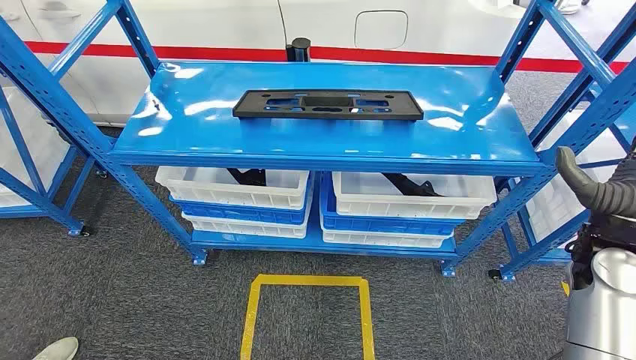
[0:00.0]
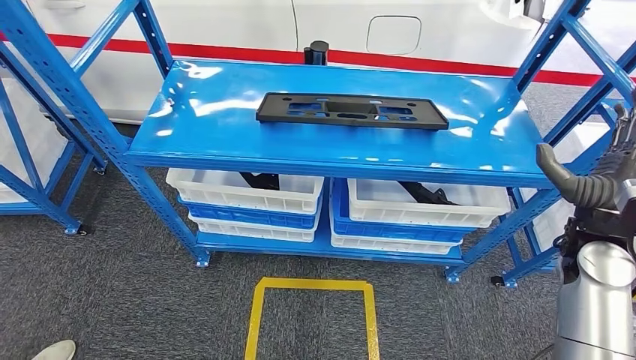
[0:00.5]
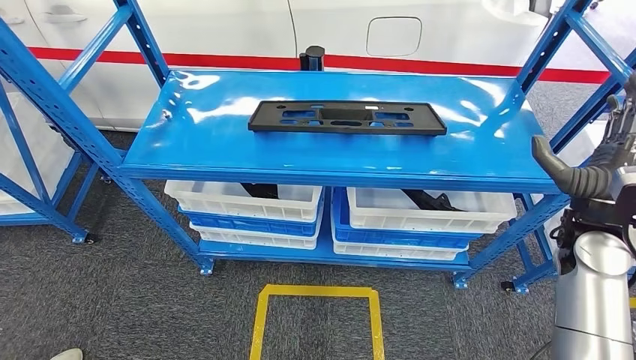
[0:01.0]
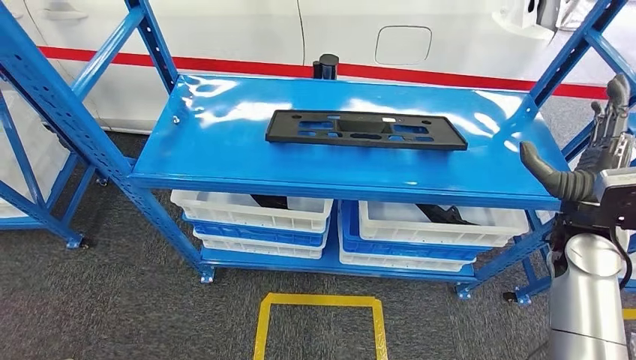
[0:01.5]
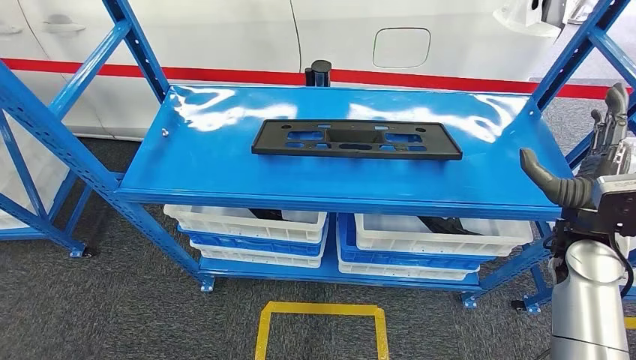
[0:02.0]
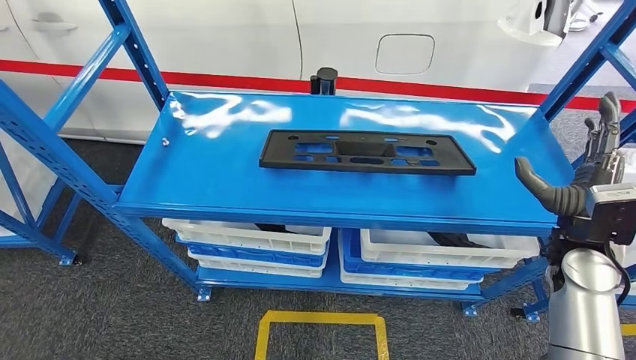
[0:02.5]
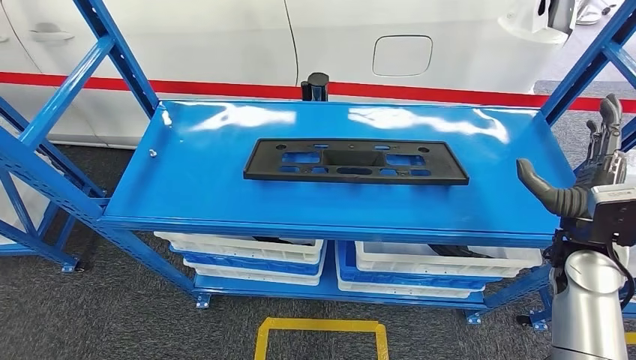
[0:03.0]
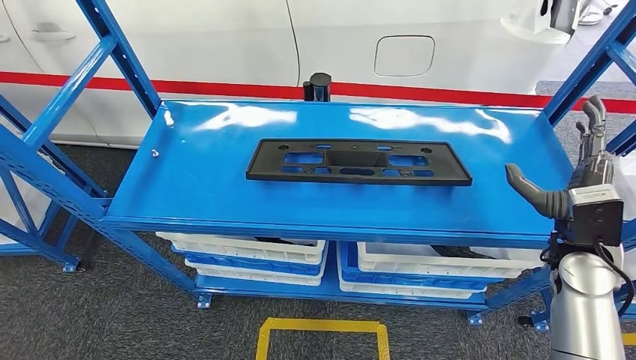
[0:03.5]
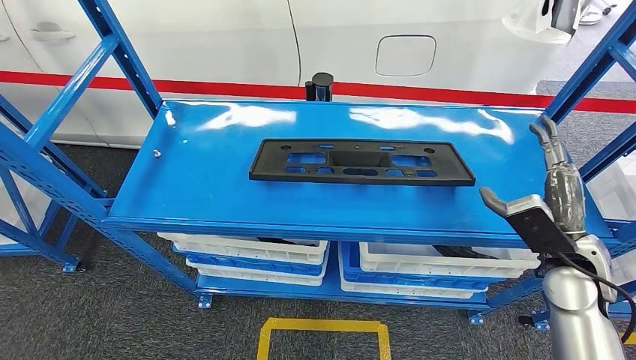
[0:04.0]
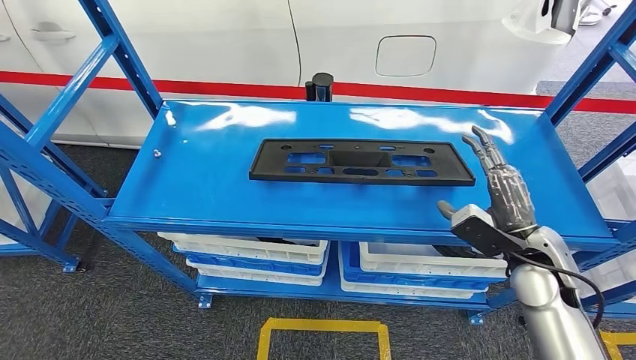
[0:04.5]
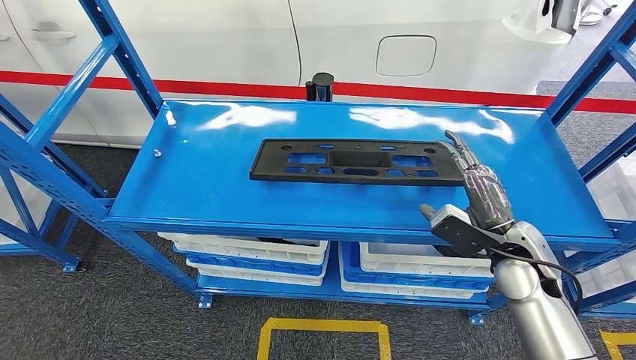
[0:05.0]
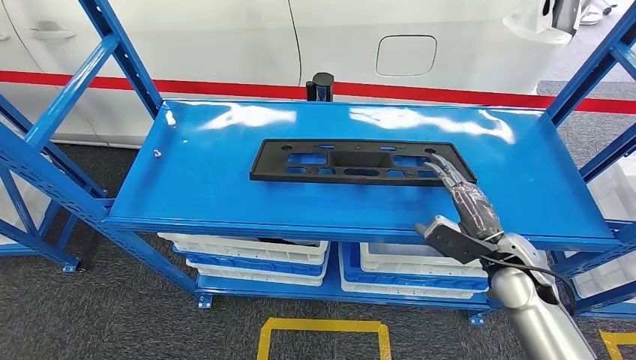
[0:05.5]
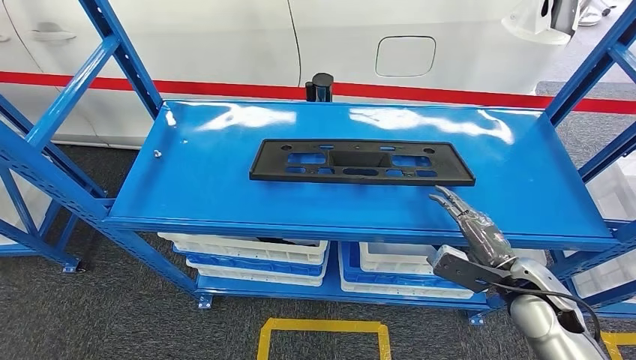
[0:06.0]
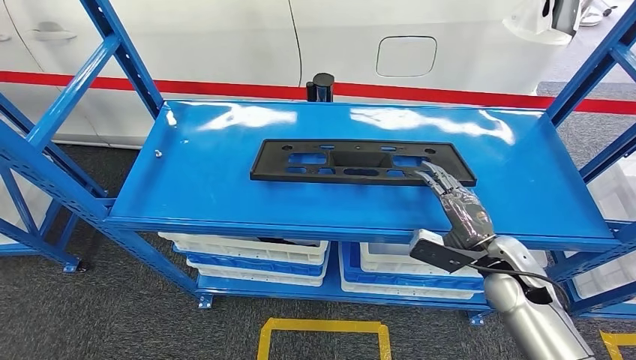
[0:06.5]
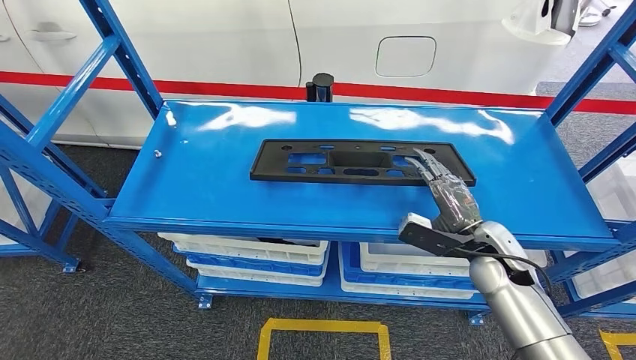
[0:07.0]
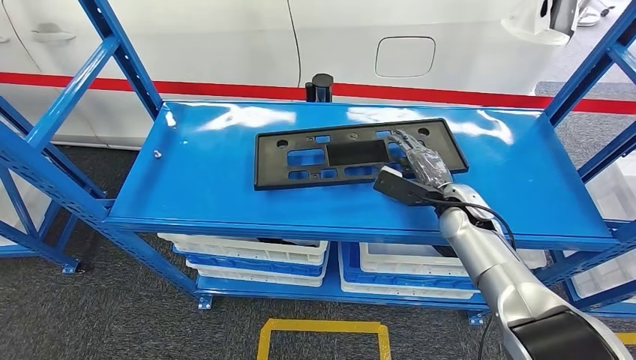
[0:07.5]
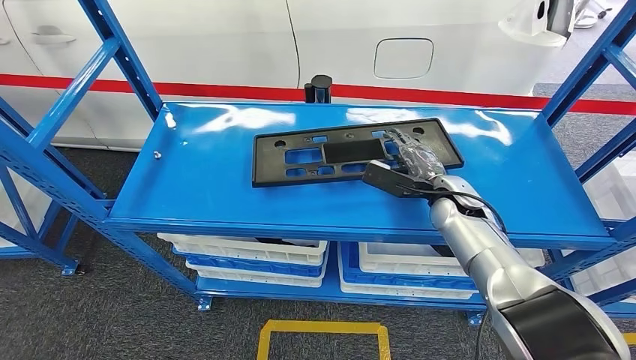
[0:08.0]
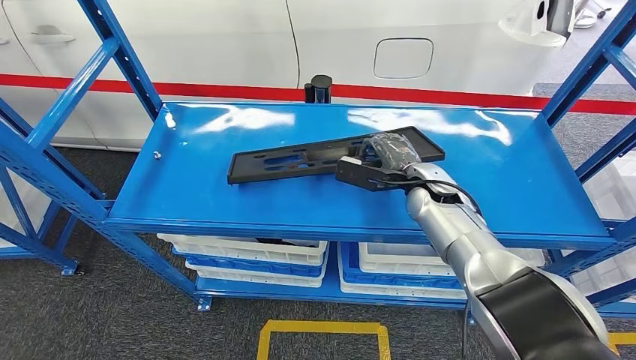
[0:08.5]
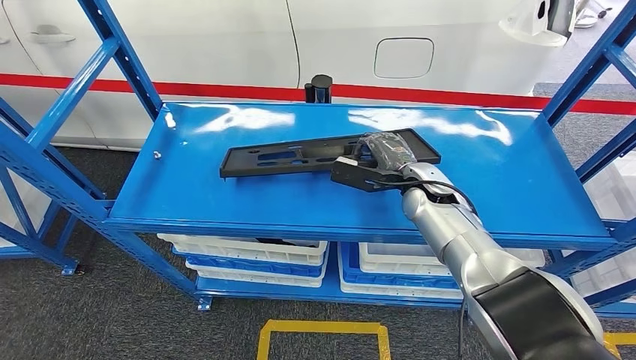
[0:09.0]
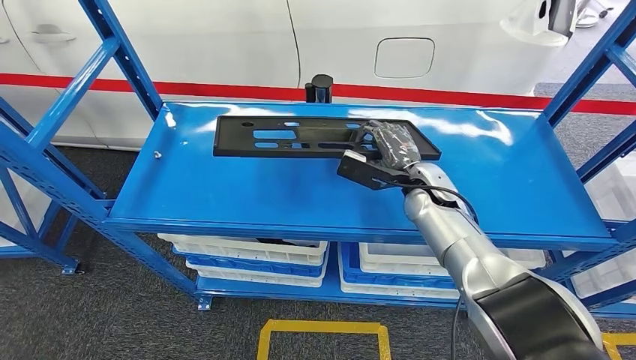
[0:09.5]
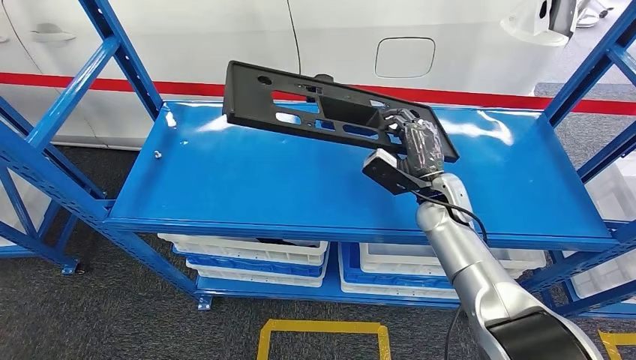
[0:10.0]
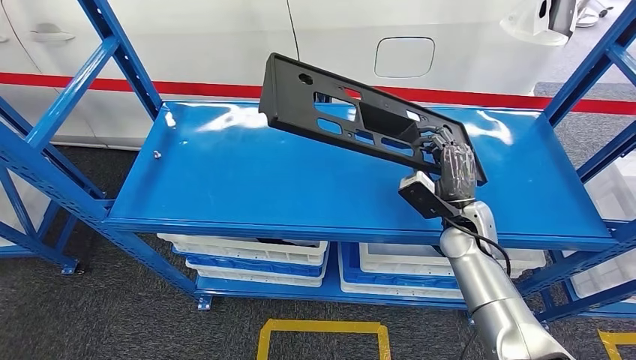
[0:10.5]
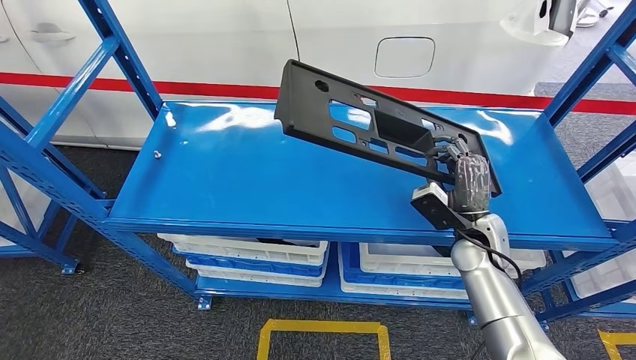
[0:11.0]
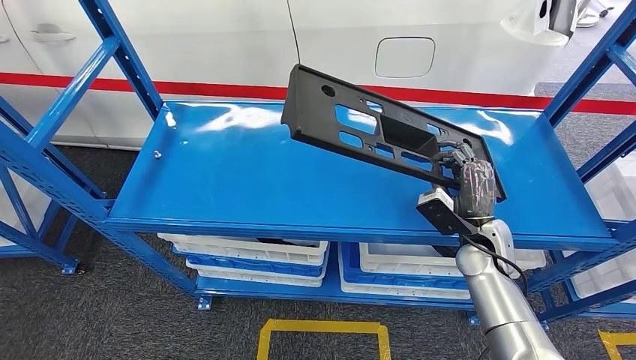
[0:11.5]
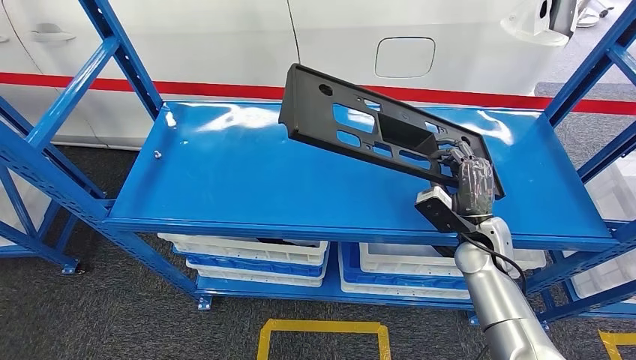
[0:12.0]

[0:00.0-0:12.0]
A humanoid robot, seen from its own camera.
0:04.0 to 0:06.0: The right hand goes roughly 5 cm downward.
0:06.0 to 0:08.0: The right hand is displaced forward and to the left by roughly 20 cm.
0:10.0 to 0:12.0: The right hand shifts roughly 10 cm to the right and backward.

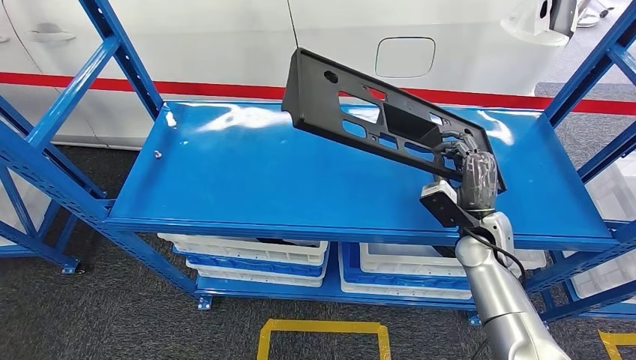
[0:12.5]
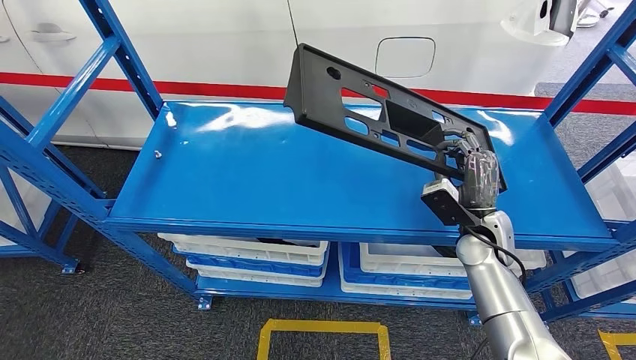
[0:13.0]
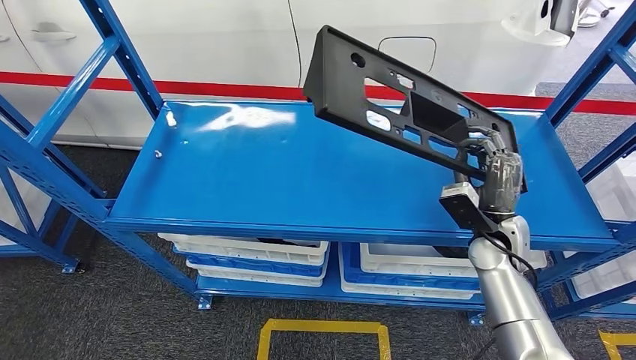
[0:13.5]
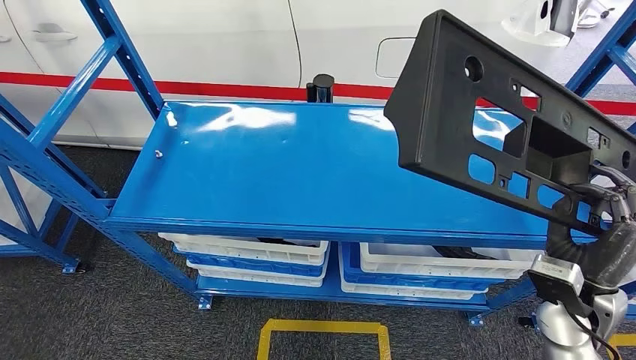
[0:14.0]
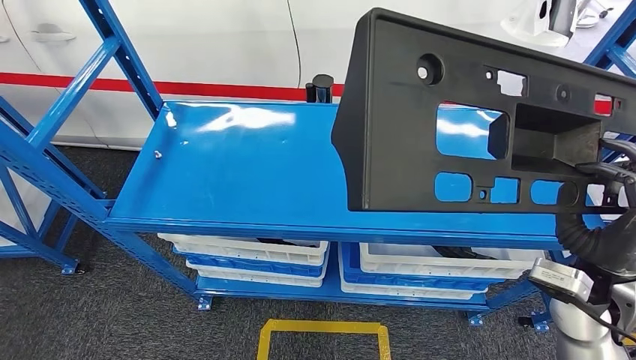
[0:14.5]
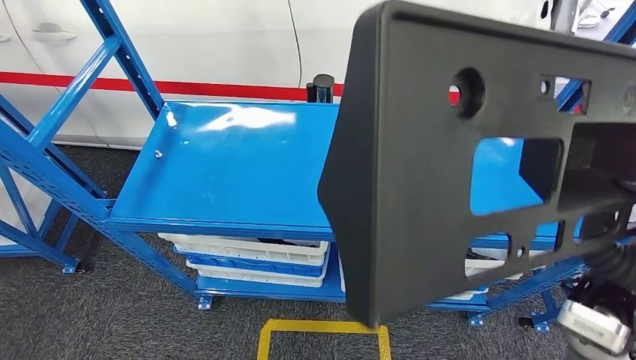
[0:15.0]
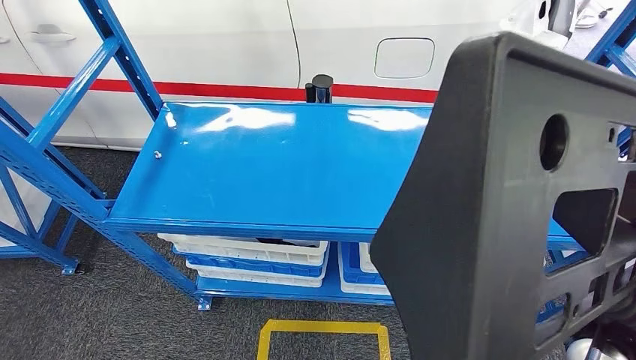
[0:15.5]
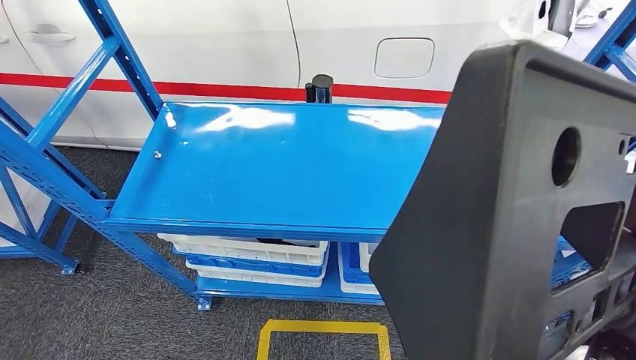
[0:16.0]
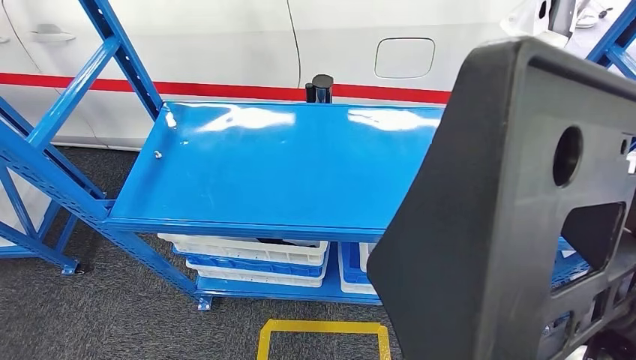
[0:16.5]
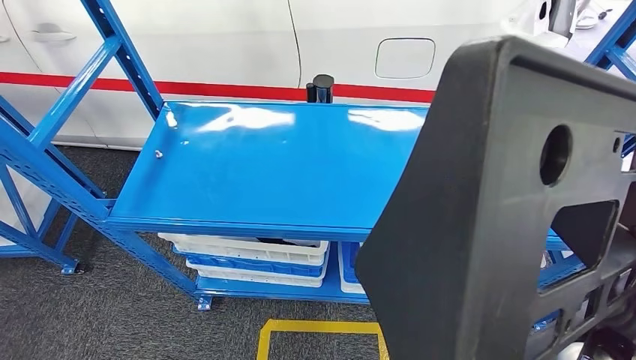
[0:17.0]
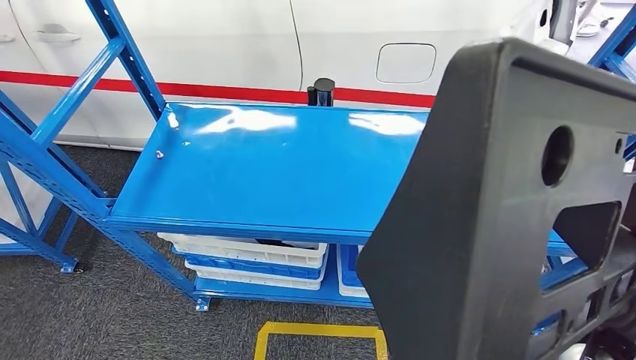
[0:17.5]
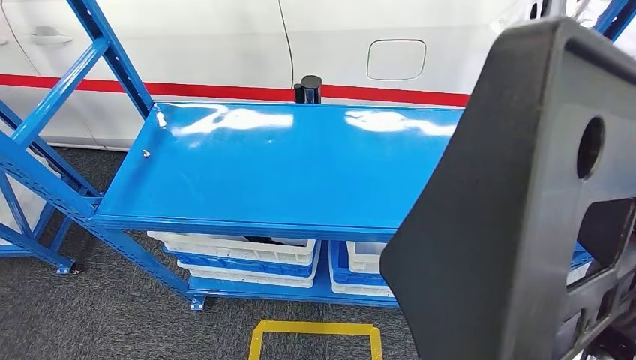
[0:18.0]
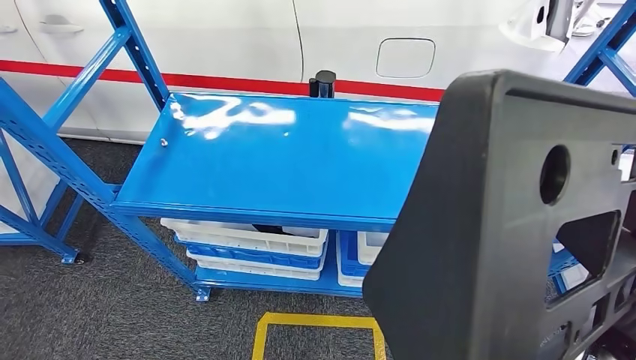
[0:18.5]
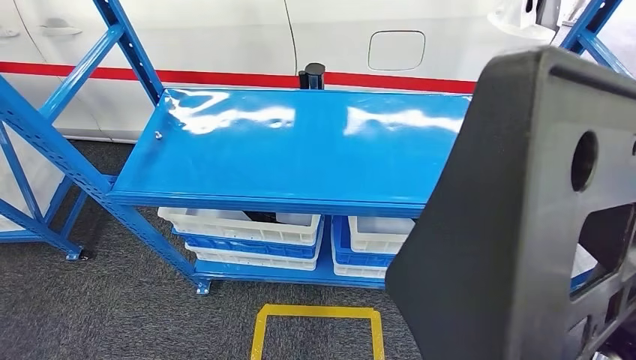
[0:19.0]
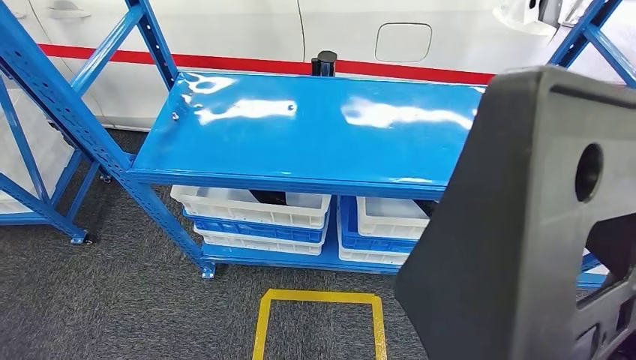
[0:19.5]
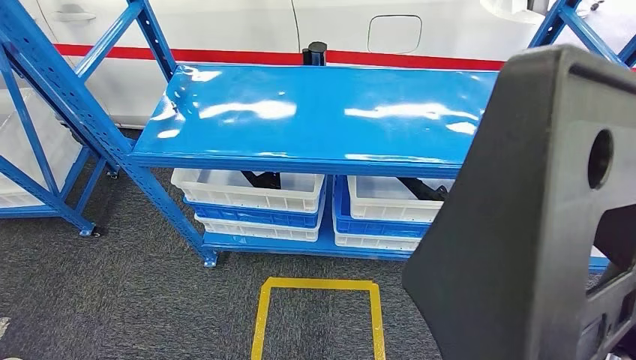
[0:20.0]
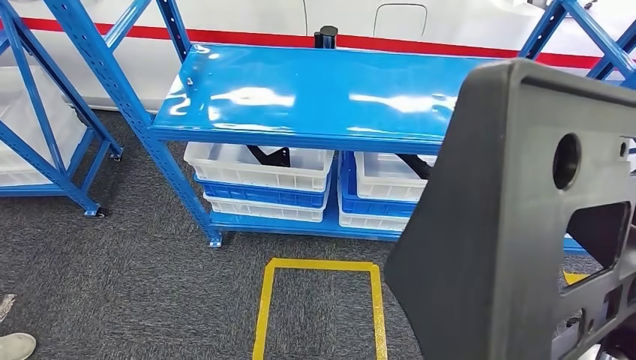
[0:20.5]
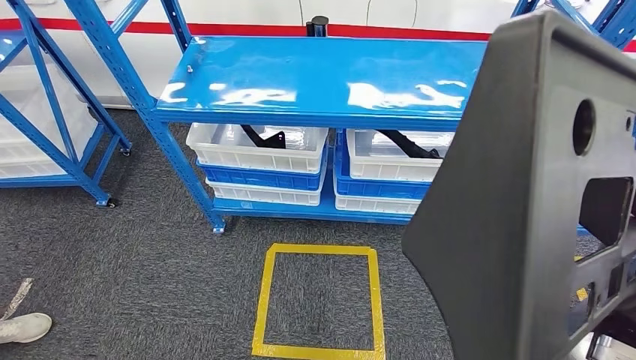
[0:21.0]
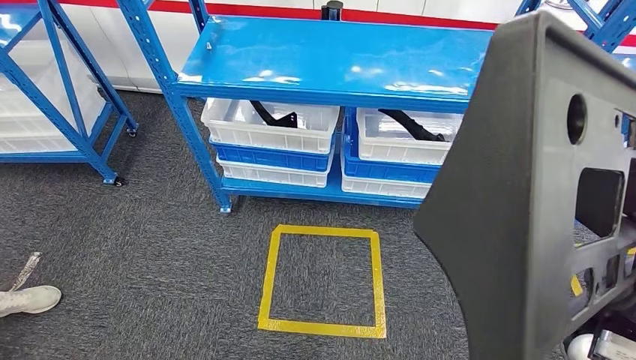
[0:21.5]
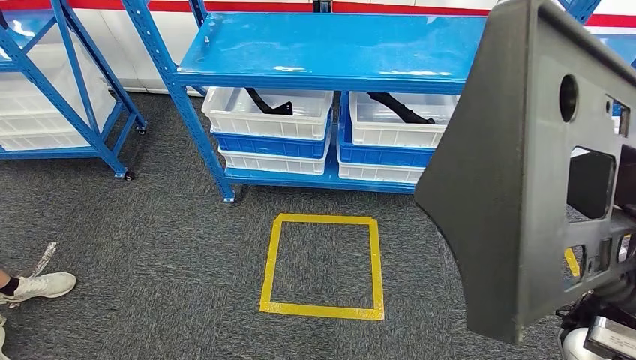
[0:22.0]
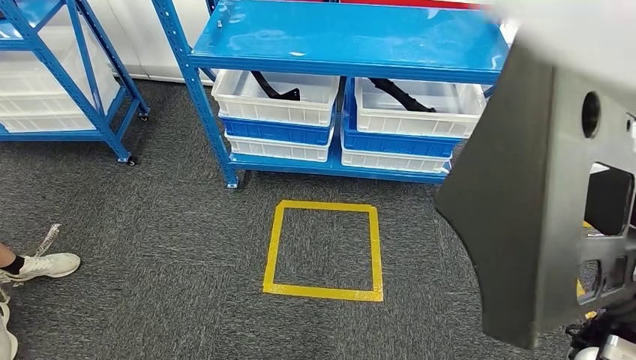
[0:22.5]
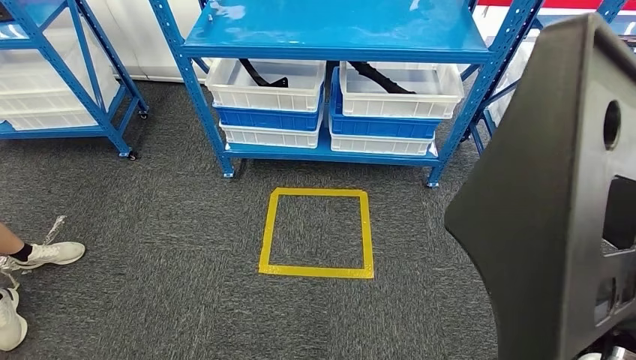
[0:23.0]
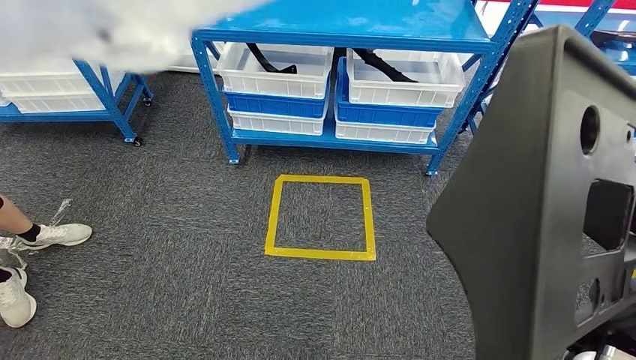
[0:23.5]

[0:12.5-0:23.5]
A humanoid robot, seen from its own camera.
Step, 0:12.5 to 0:17.5: Pick up the large material from the shelf.
